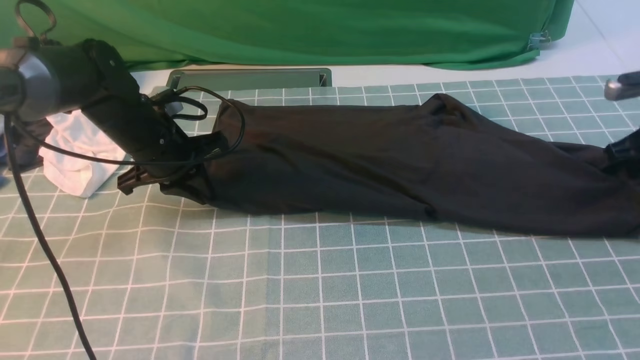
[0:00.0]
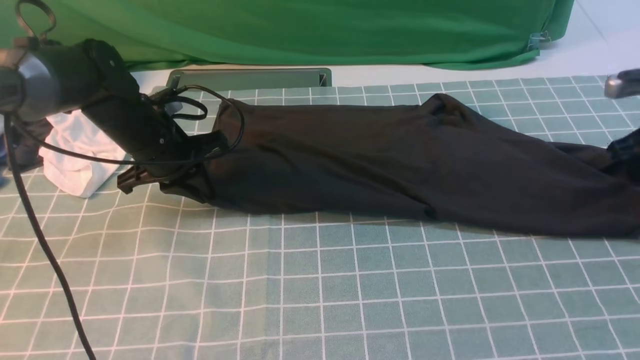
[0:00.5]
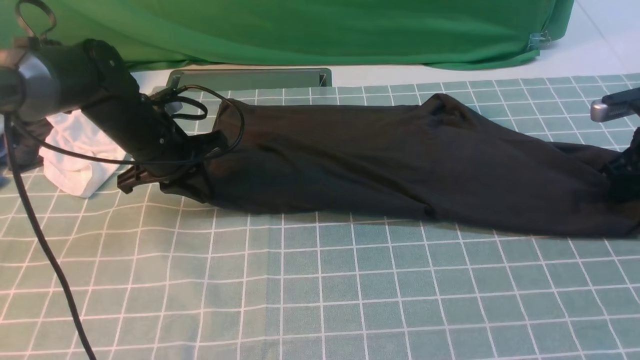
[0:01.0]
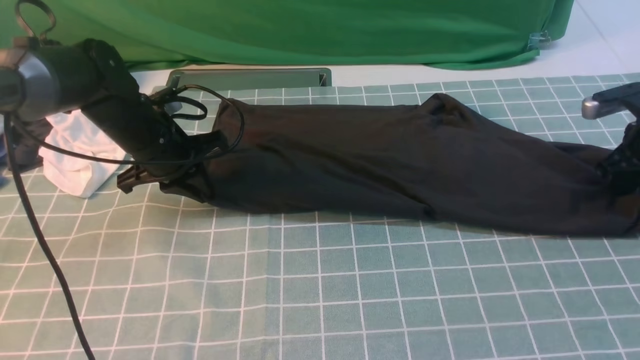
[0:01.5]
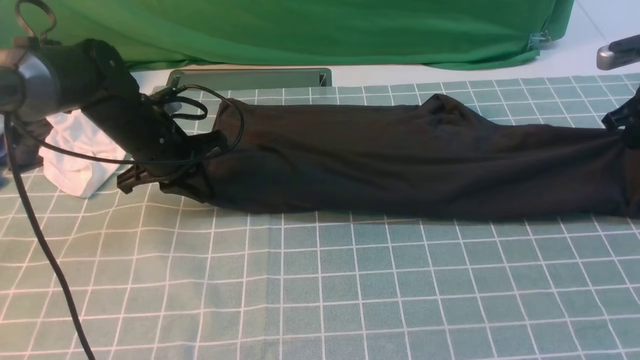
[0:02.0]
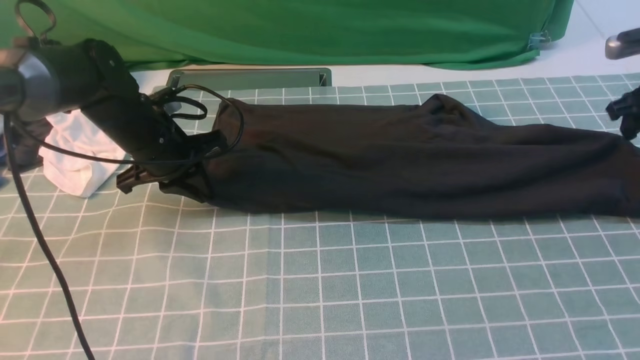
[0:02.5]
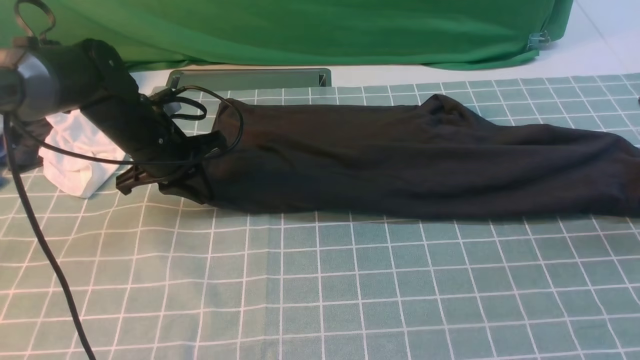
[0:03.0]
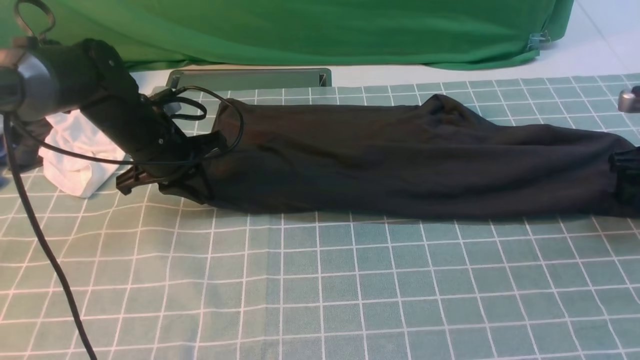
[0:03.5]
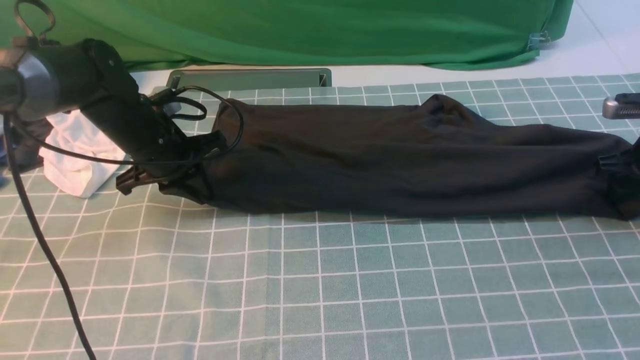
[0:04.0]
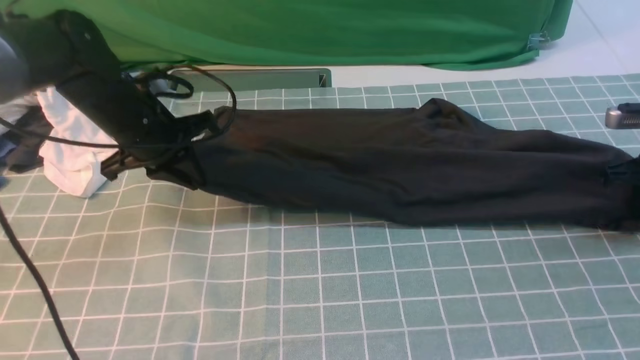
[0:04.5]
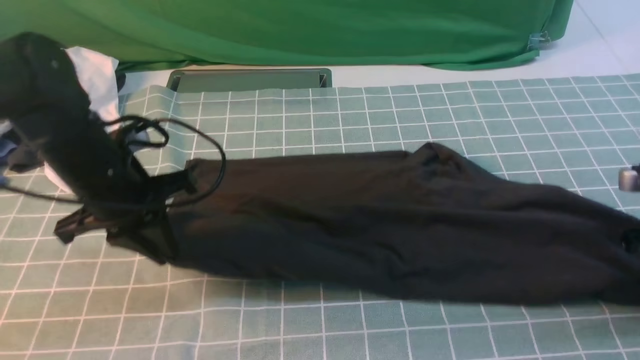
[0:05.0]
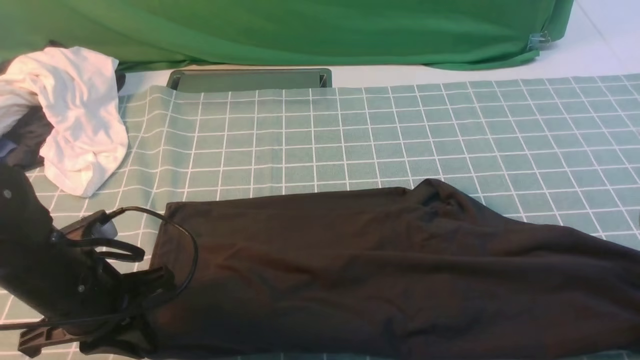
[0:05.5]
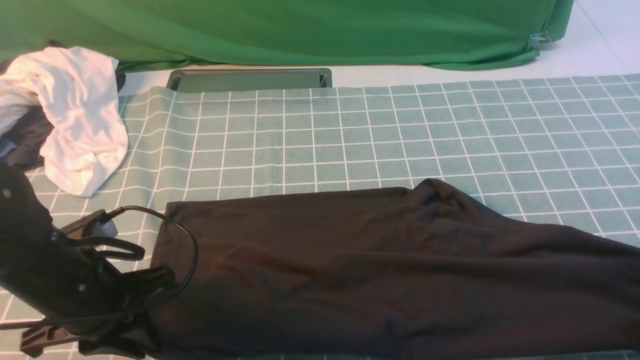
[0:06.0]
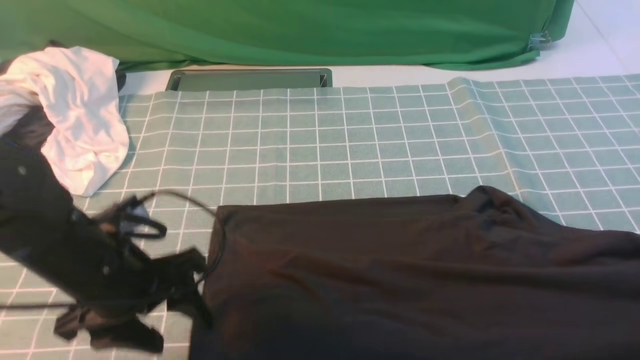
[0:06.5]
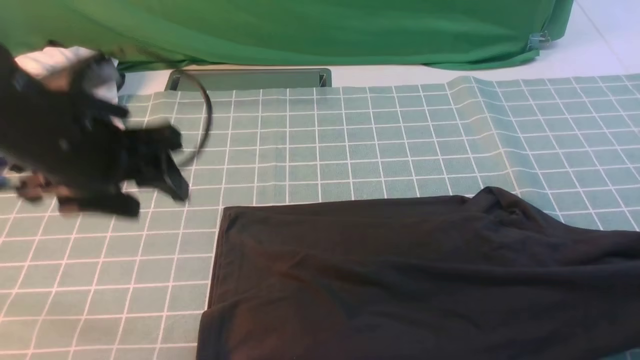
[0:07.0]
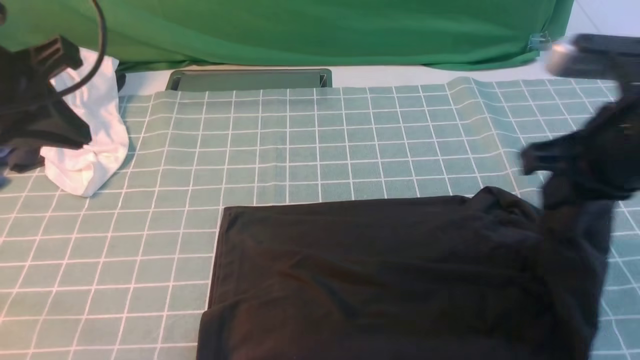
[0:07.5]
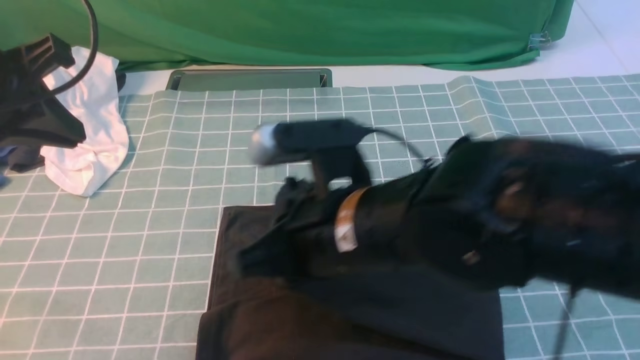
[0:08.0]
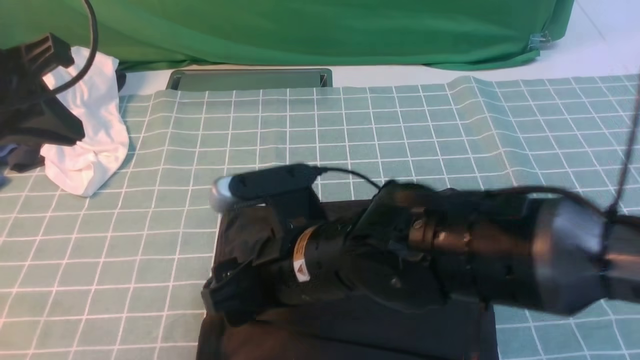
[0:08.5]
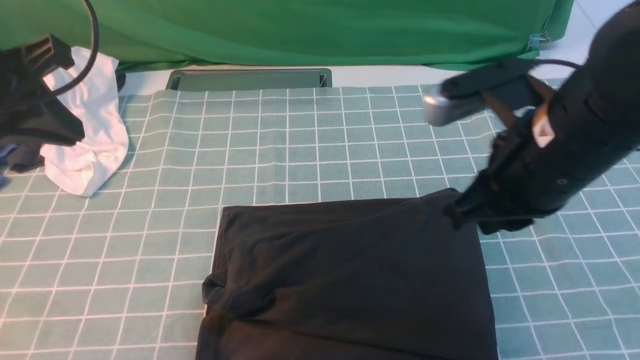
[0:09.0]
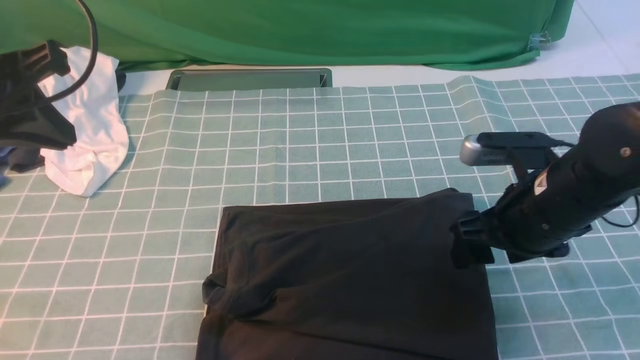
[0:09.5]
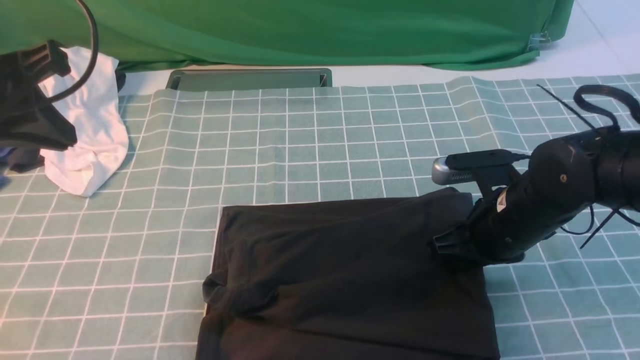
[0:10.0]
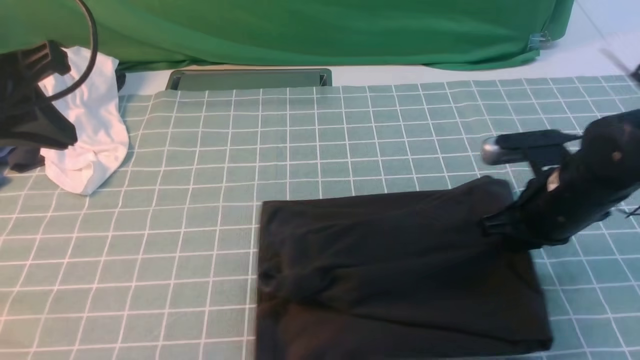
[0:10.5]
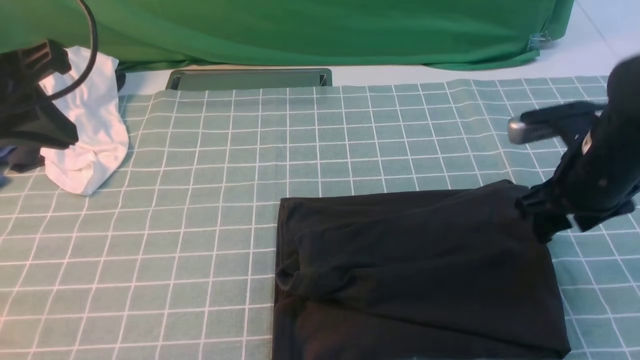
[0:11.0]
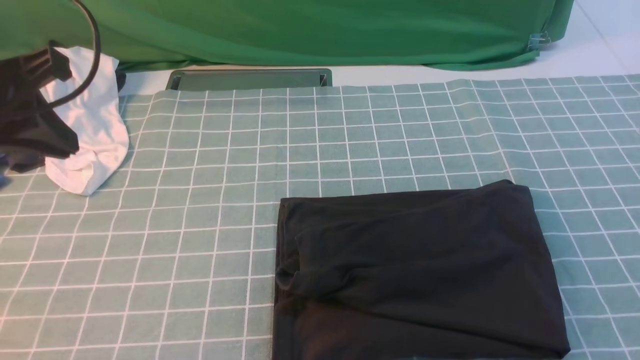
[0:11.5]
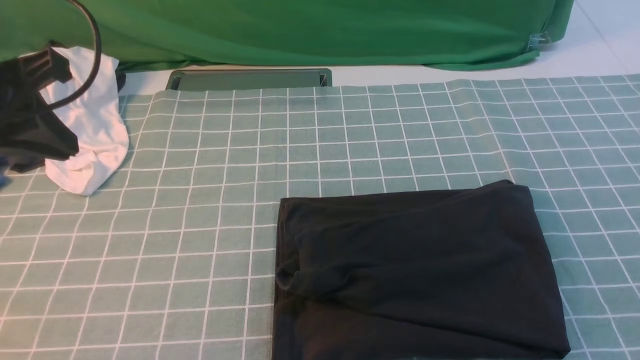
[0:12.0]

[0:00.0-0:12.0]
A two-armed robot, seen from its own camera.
Step, 0:00.0 to 0:06.5: use the right arm to clamp the right edge of the fabric.
Step, 0:07.0 to 0:09.0: use the right arm to drag the right edge of the fabric to the left and folds it over the left edge.
0:00.0 to 0:02.0: The right gripper opens, then closes again.
0:02.0 to 0:04.0: The right gripper is displaced downward by approximately 5 cm, and opens up.
0:04.0 to 0:06.0: Both grippers travel together backward, some 20 cm. The right gripper closes its fingers.
0:06.0 to 0:08.0: The right gripper moves to the left, roughly 35 cm, while the left gripper is displaced upward by some 15 cm, and opens, then closes once more.
0:08.0 to 0:10.0: The right gripper shifts approximately 20 cm to the right, downward and forward, and opens.
0:10.0 to 0:12.0: The right gripper moves backward, upward and to the right, approximately 25 cm, and closes up.

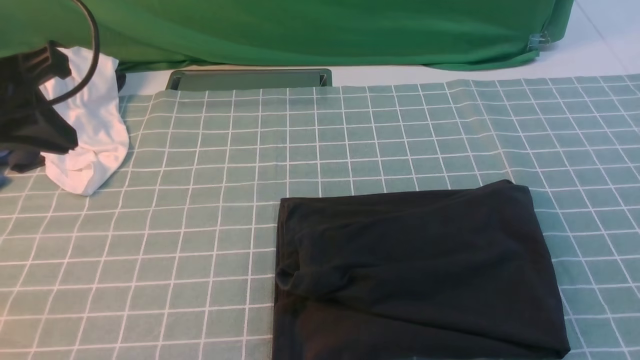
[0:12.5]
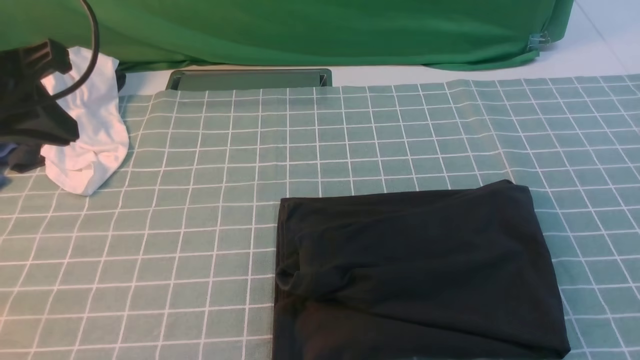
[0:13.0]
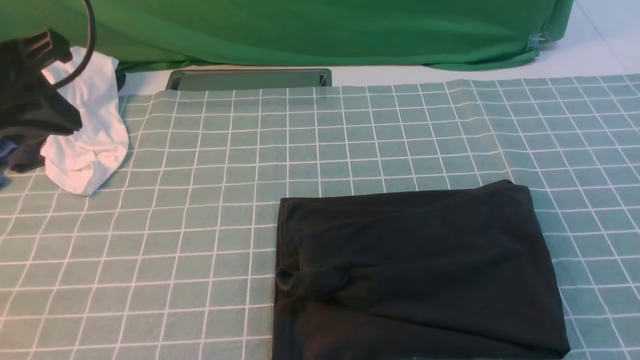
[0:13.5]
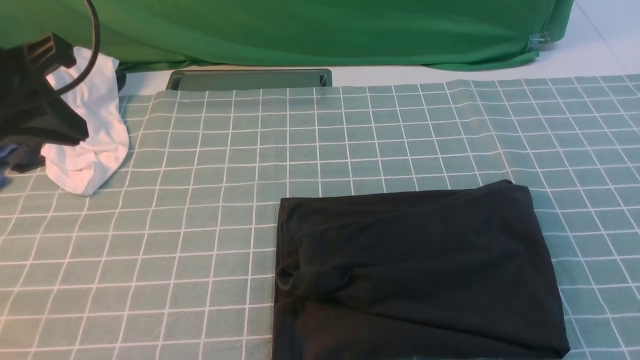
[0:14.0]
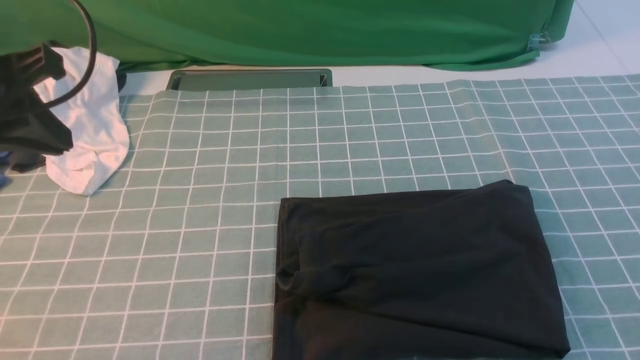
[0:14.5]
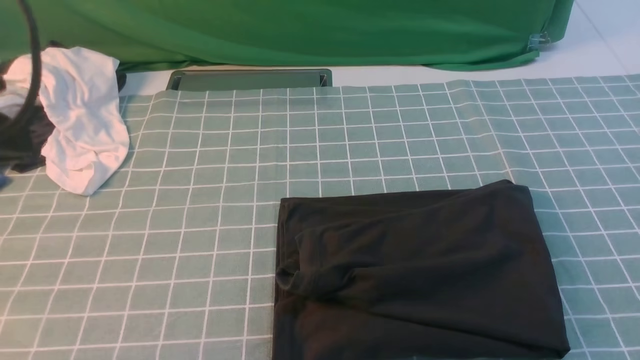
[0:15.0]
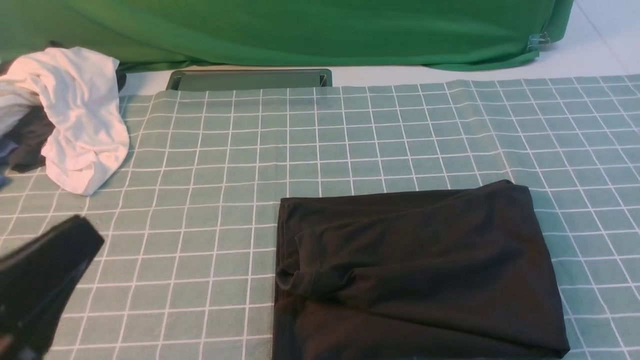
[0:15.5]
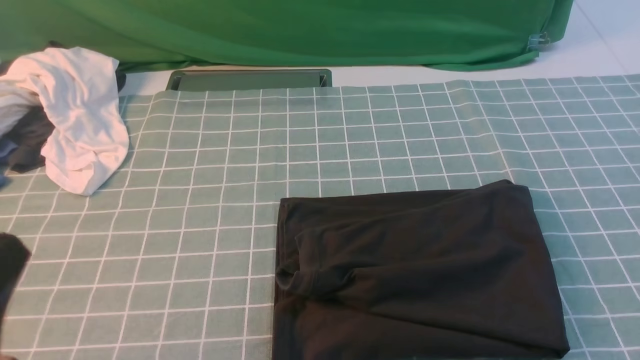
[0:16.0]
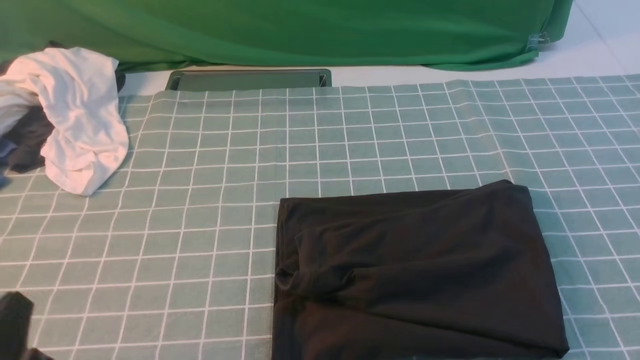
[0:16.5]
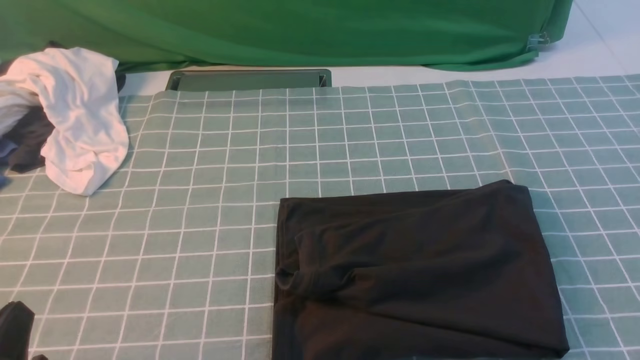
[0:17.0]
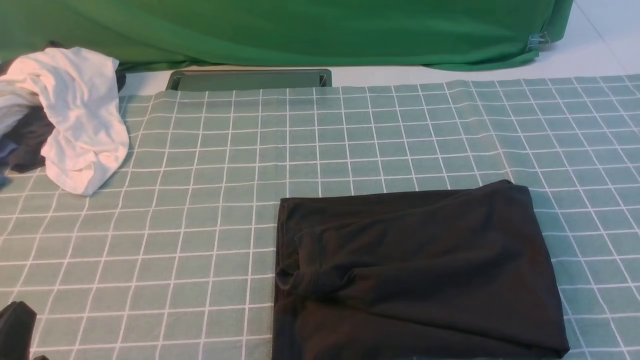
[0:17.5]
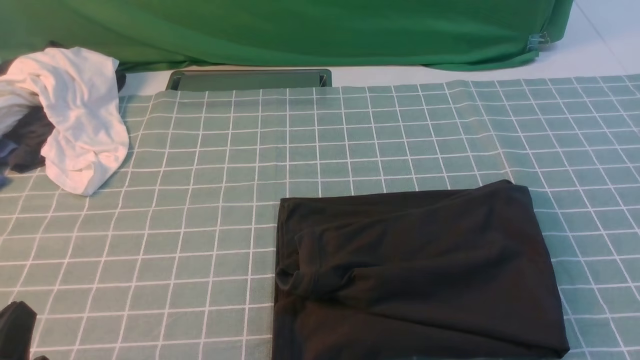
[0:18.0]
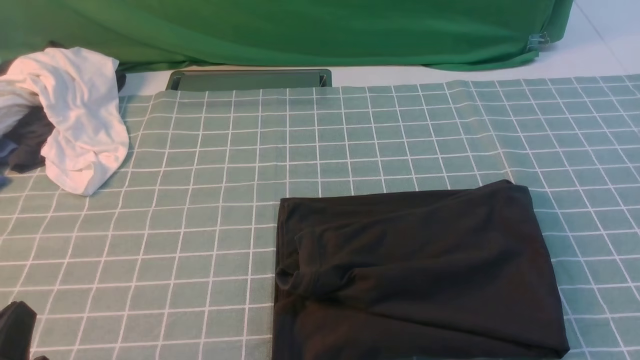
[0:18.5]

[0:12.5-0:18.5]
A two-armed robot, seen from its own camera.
0:14.5 to 0:16.5: The left gripper heads backward and downward, covering about 25 cm.
